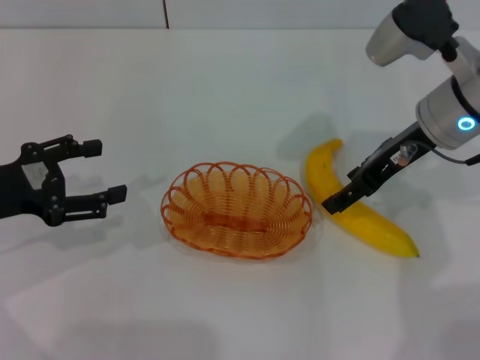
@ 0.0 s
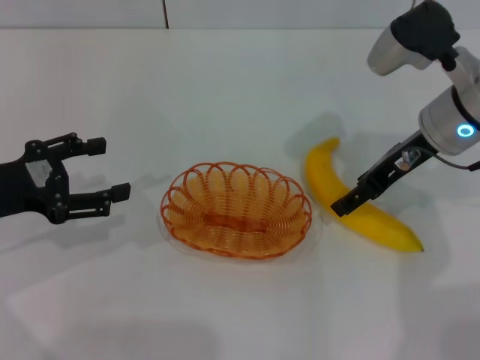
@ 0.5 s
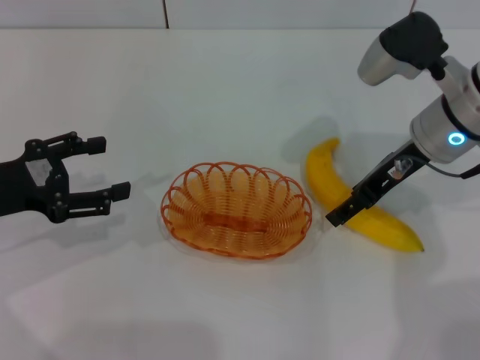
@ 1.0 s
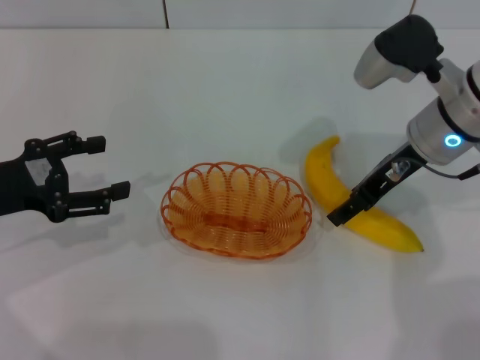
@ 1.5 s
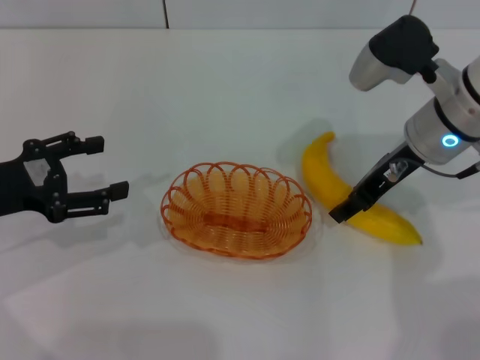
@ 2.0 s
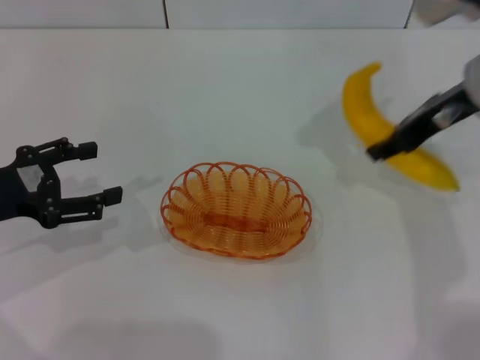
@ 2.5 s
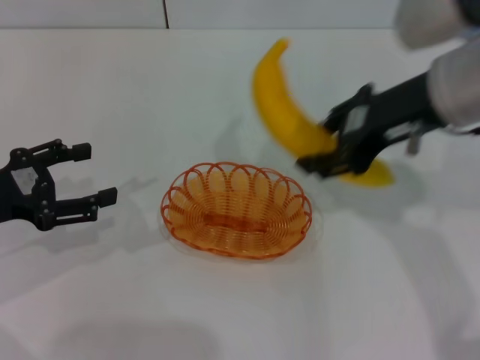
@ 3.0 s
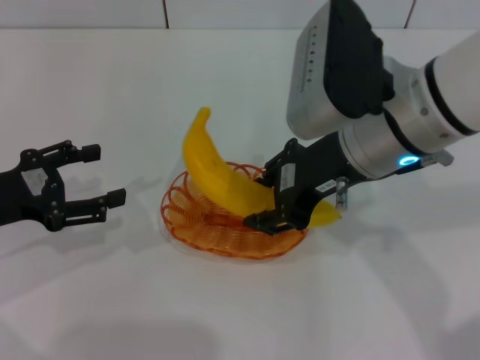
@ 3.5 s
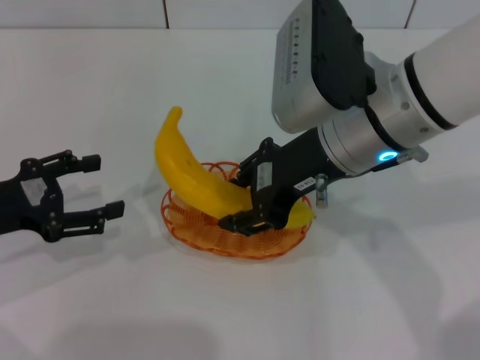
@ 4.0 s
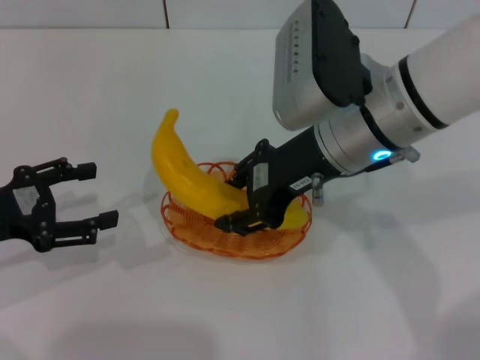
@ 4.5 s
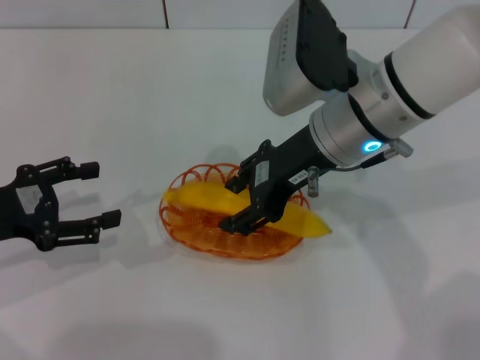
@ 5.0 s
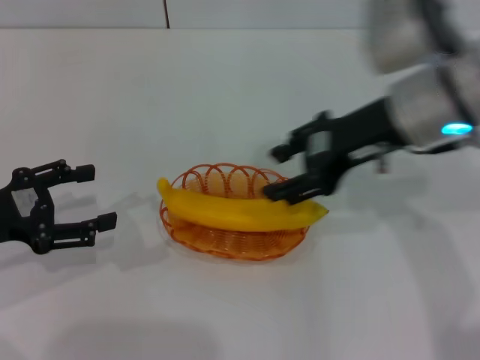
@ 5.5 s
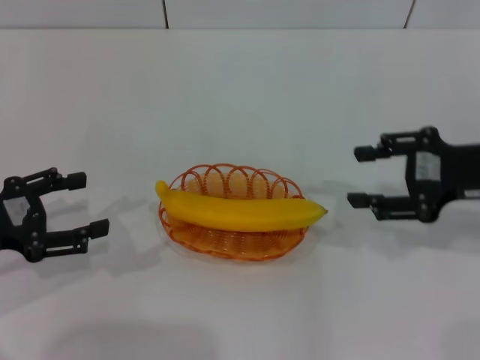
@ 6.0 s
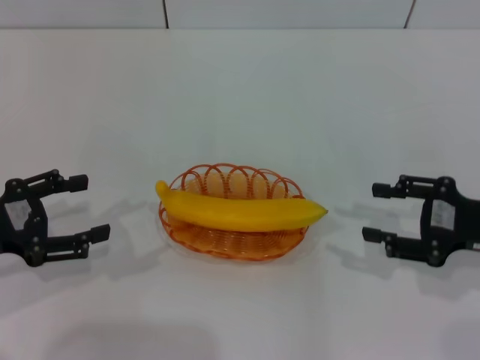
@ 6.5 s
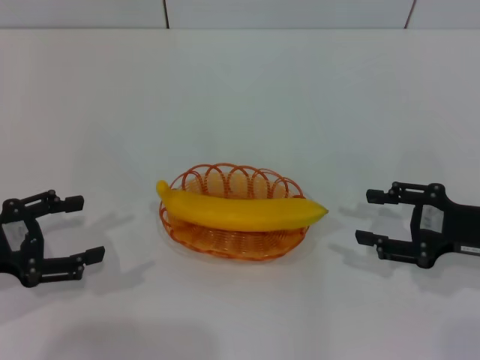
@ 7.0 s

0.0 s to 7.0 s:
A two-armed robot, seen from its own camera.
Step, 0.0 to 2.5 s: Pick up the banana with the right gripper.
Step, 3.0 to 5.5 s: Place the banana into the basket with the right gripper.
0.0 to 2.0 s: The right gripper closes up.
2.0 to 3.5 s: The right gripper heads to the left, upward and backward, covering roughly 10 cm.
5.0 to 7.0 s: The right gripper is displaced to the right, downward and backward by approximately 25 cm.
